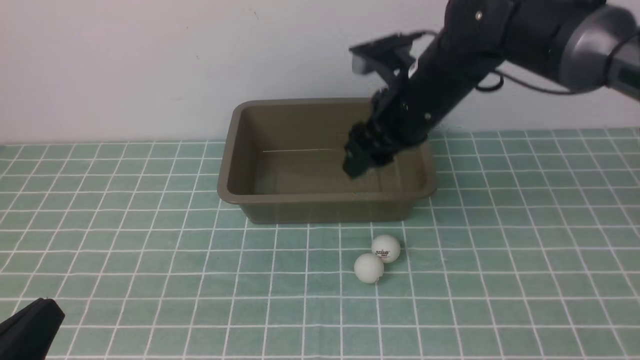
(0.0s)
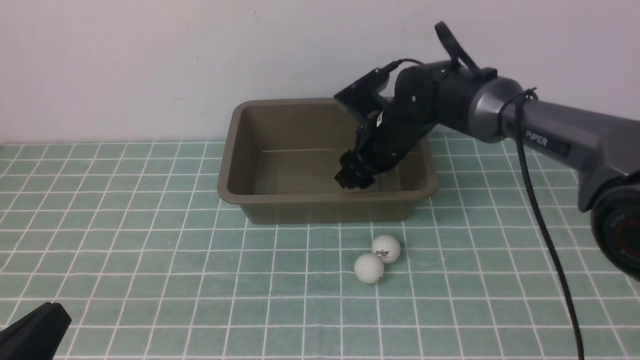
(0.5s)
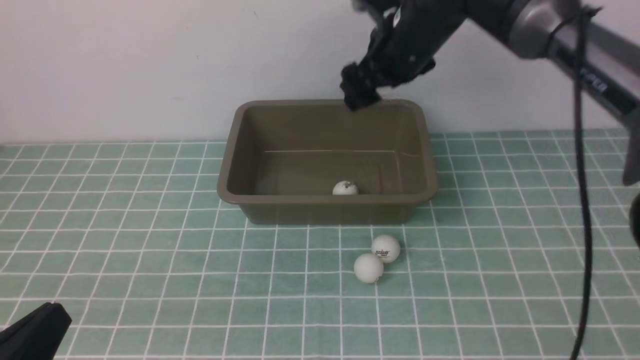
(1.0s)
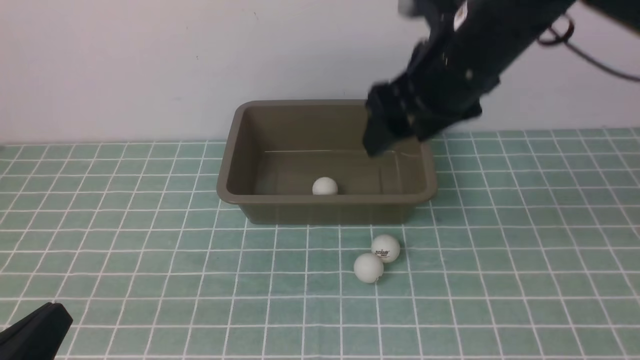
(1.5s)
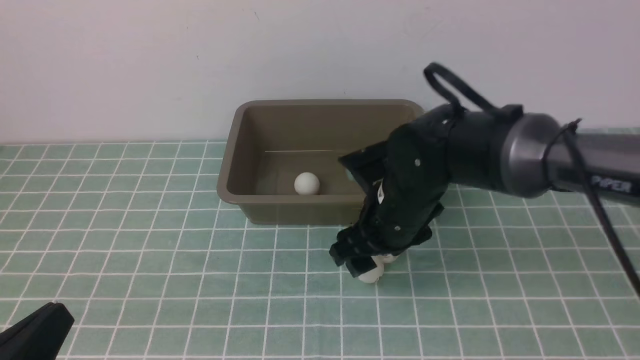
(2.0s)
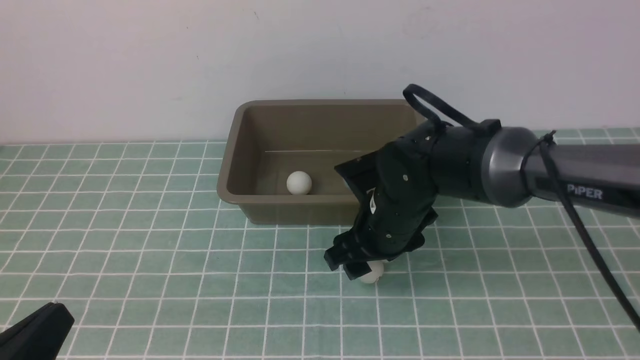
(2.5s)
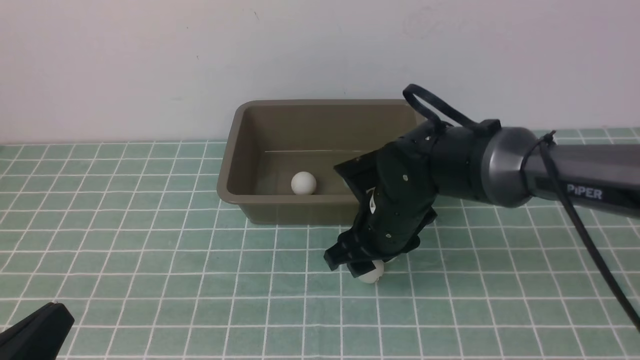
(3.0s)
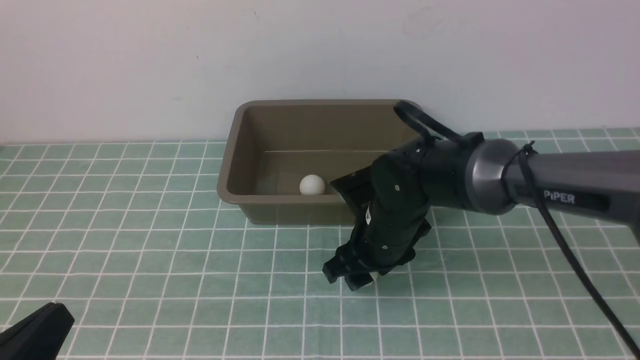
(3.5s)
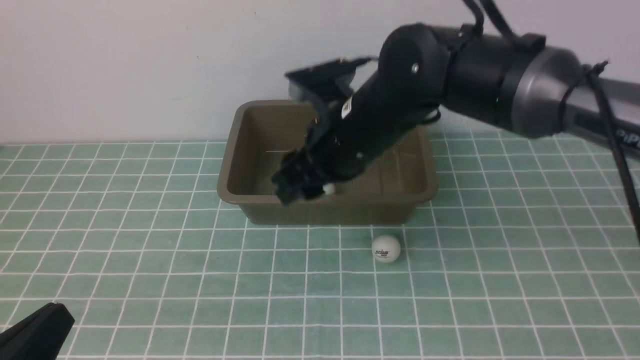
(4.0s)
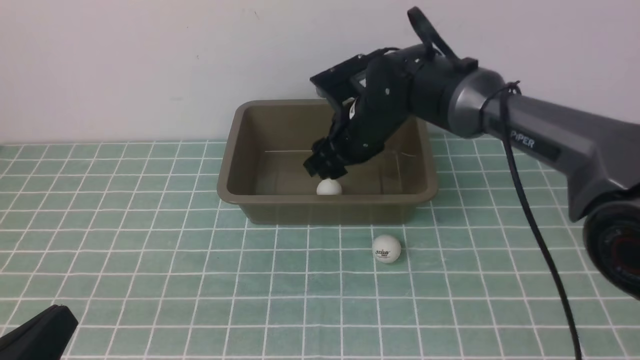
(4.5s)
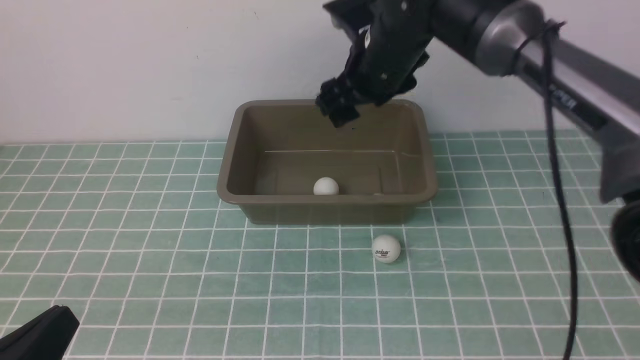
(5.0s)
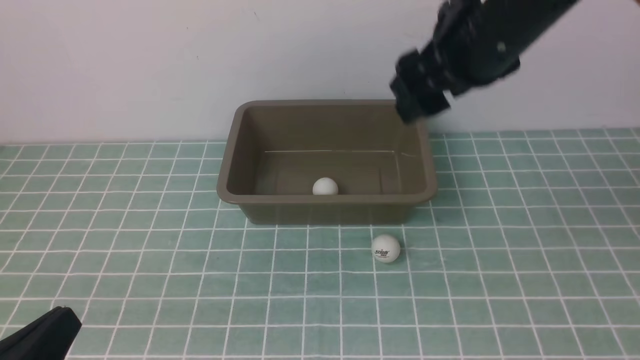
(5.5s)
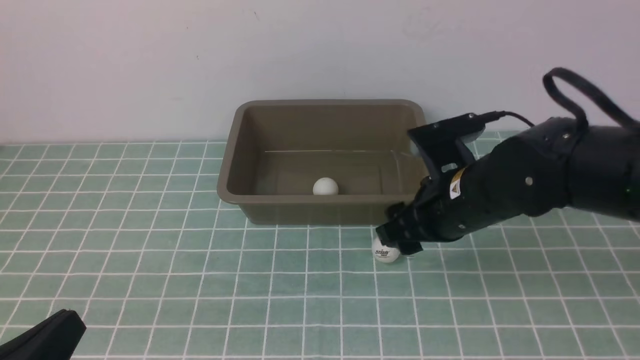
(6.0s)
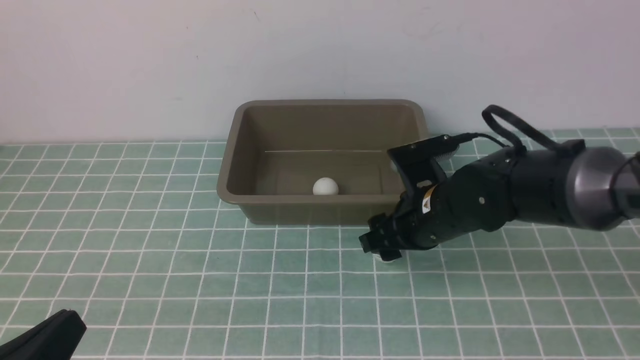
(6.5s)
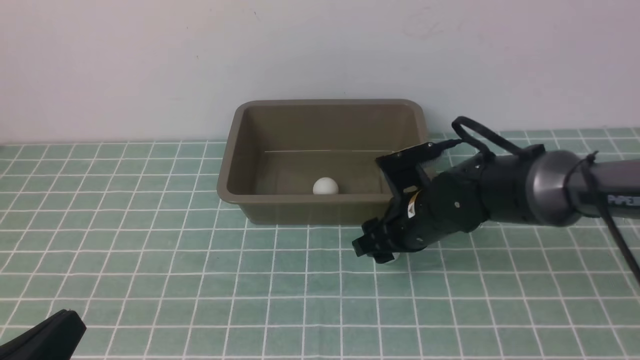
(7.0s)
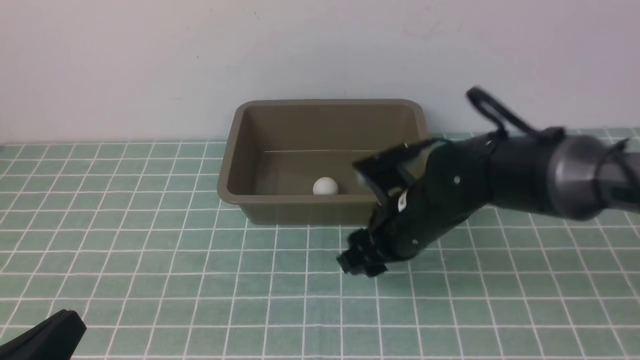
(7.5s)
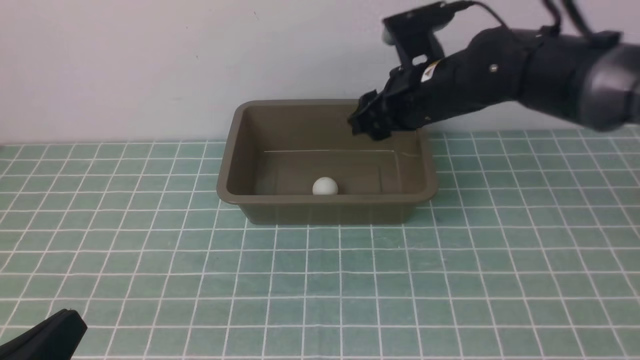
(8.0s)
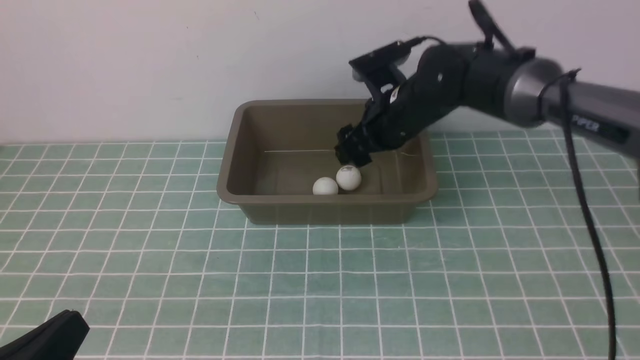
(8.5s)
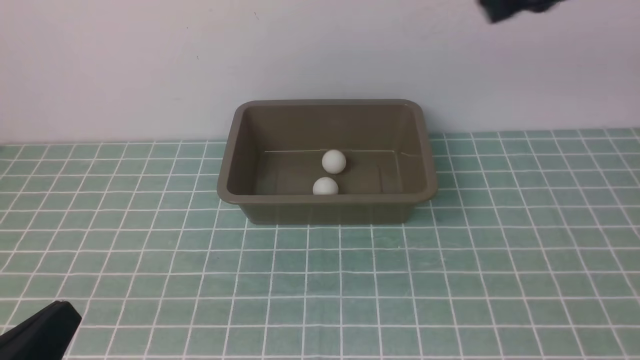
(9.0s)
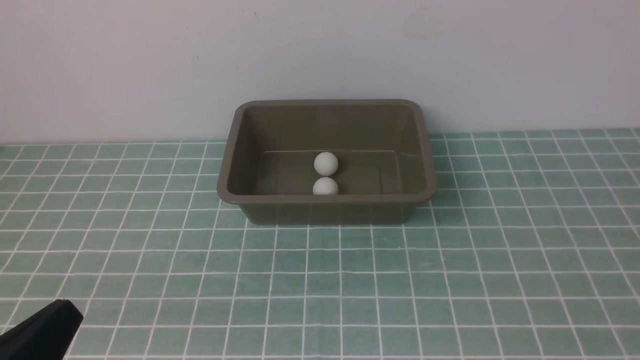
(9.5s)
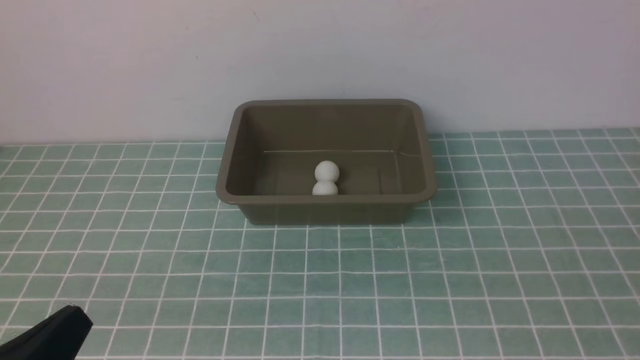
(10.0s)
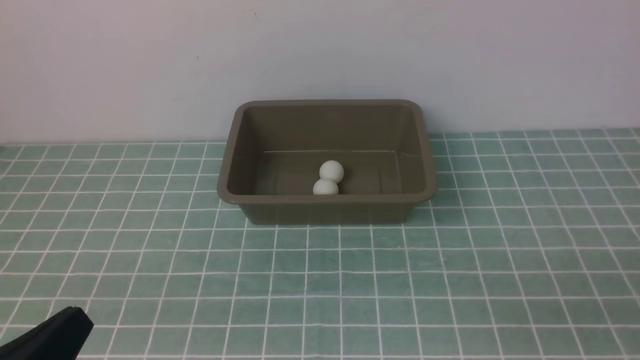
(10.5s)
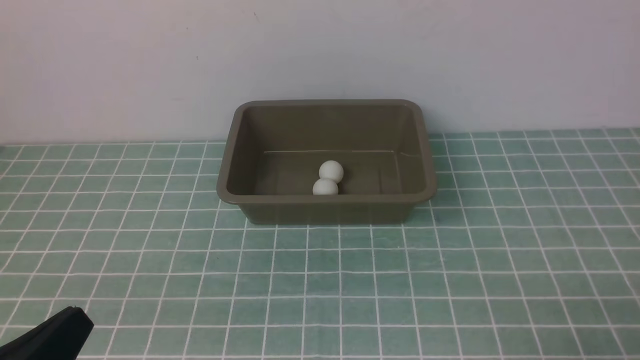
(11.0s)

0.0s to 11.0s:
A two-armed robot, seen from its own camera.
Step, 0.0s to 0.5s: use the right arm to put the table tennis ball into the box.
Step, 1.0s to 3.5s: use the right arm to clamp the table tennis ball closest to it.
Step, 4.0s to 4.5s: use the right arm to put the table tennis ball into the box.
Step, 5.5s to 7.5s: use the right arm to clamp the table tennis ball closest to it.
Step, 8.0s to 8.5s: use the right arm to put the table tennis ball into the box.
0.0s to 2.0s: The right gripper swings up and down, about 20 cm each way, with 2 reversals.
2.0s to 3.5s: The grippers stay close to where they were, moving slightly.
3.5s to 5.5s: The right gripper is displaced upward by some 20 cm.
5.5s to 7.5s: The right gripper travels downward by approximately 15 cm.
7.5s to 9.0s: The right gripper travels upward, backward and to the right by about 30 cm, and closes up.
9.0s to 11.0s: The right gripper is displaced downward and backward by some 30 cm.

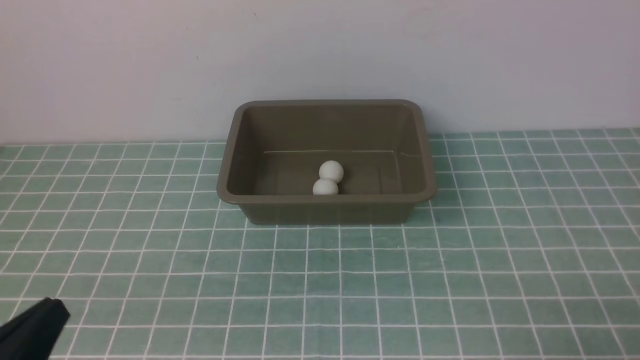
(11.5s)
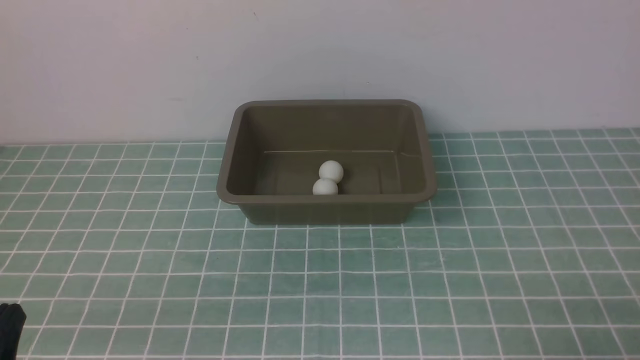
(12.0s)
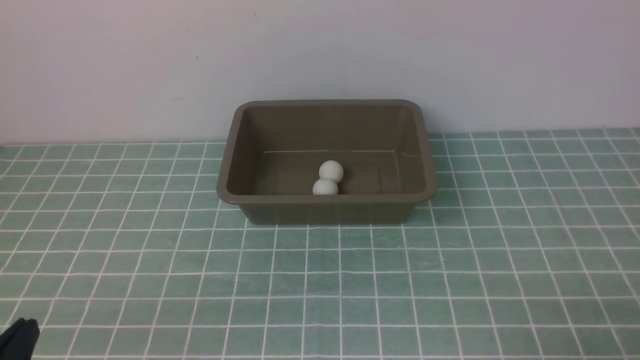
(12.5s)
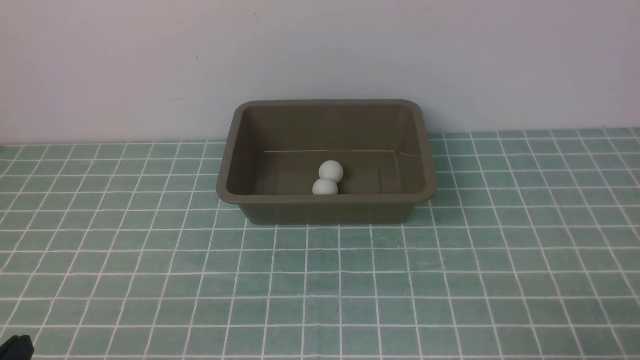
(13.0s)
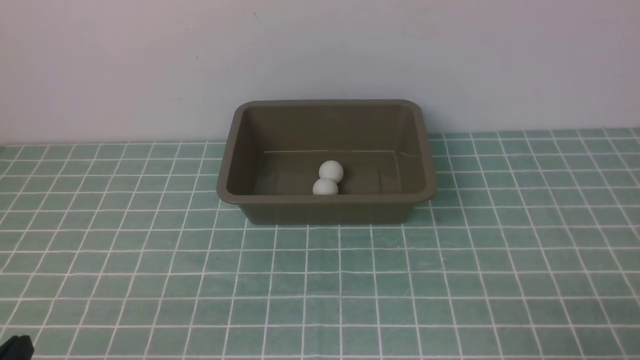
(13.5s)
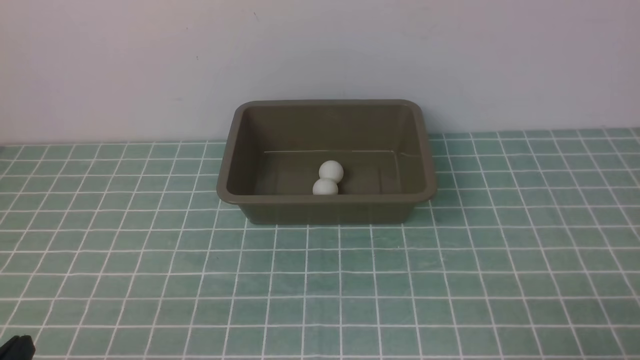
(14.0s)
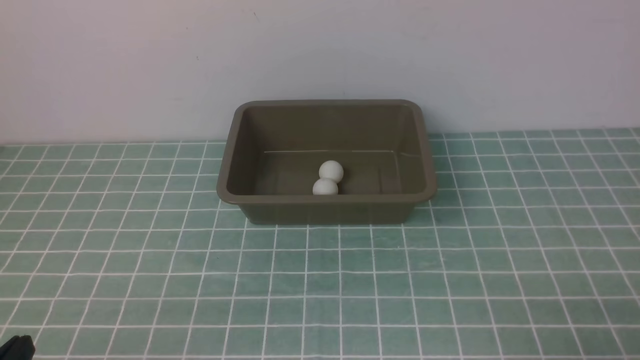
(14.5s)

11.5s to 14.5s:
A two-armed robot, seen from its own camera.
11.5s to 13.0s: The left gripper travels downward by roughly 5 cm.
13.0s to 14.5s: The two grippers keep their place.

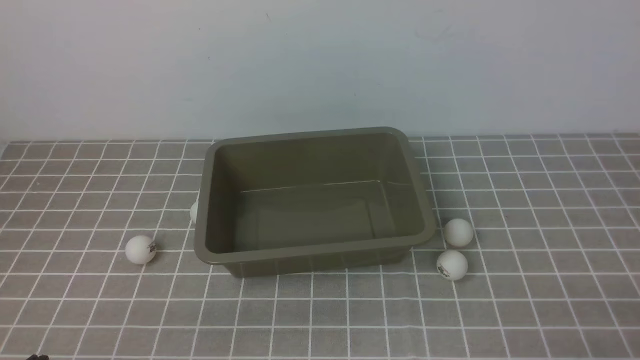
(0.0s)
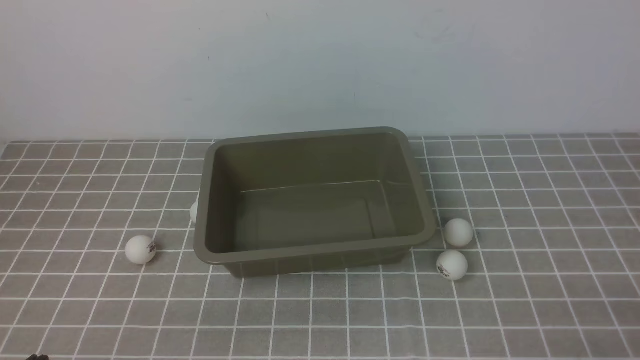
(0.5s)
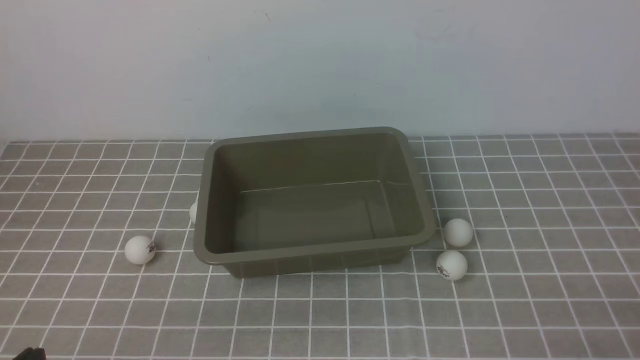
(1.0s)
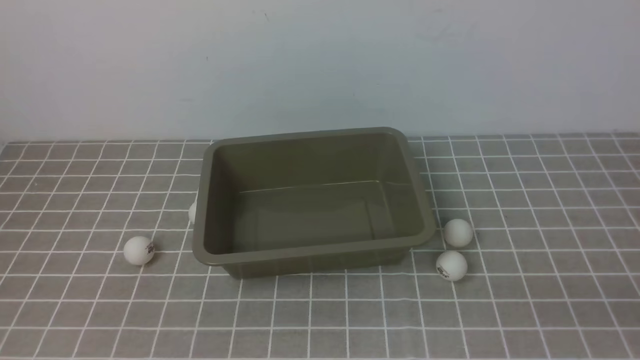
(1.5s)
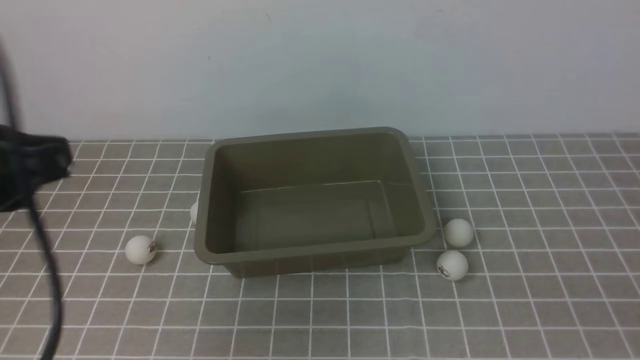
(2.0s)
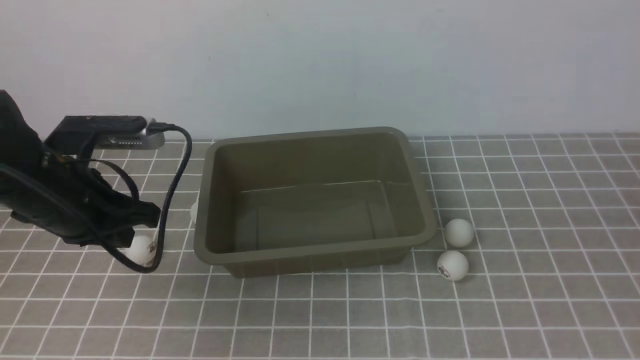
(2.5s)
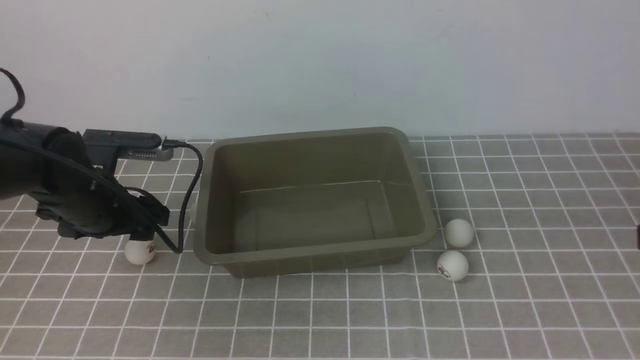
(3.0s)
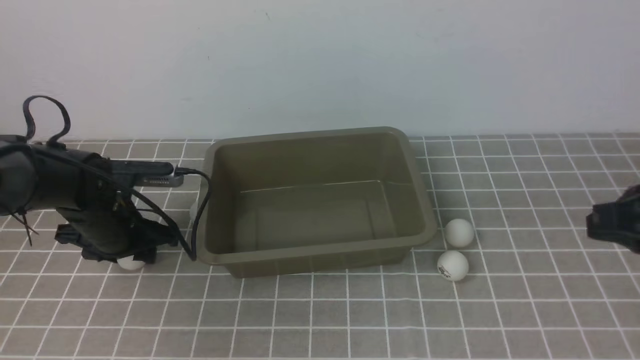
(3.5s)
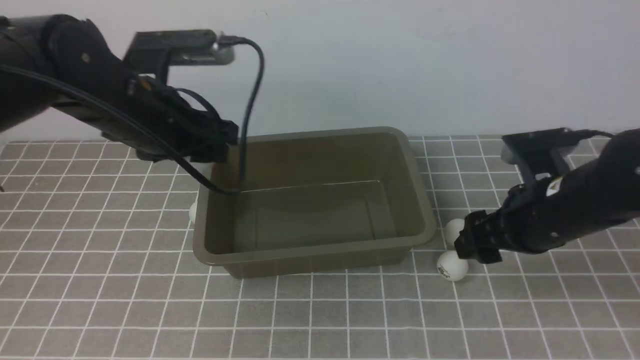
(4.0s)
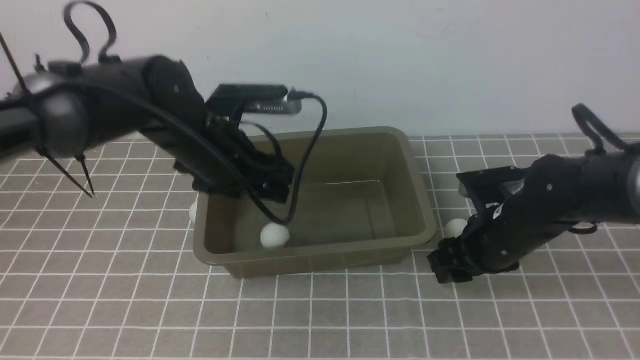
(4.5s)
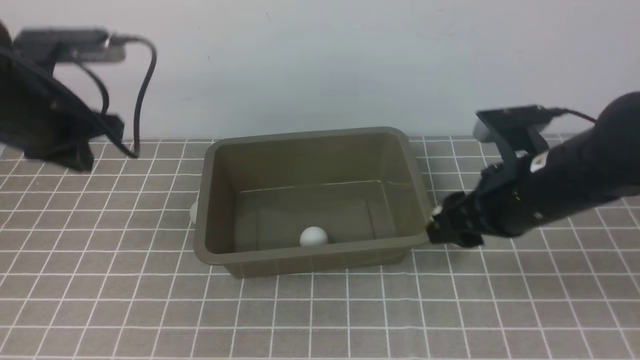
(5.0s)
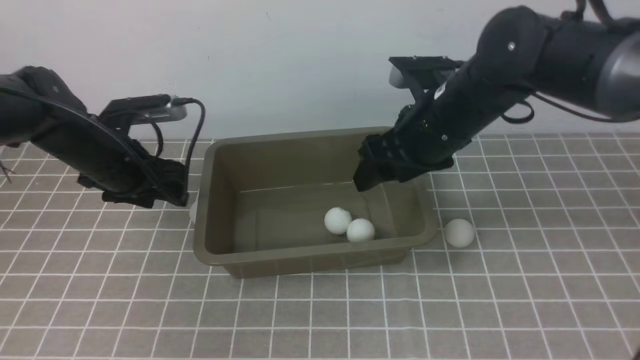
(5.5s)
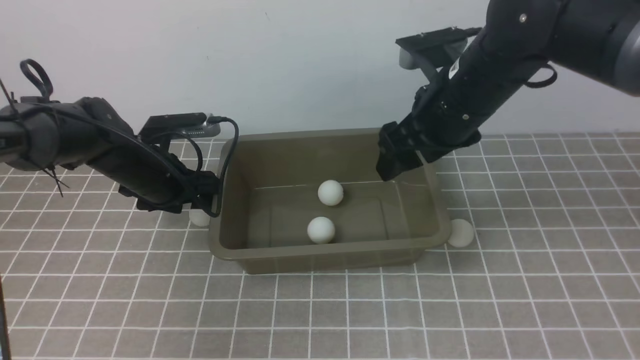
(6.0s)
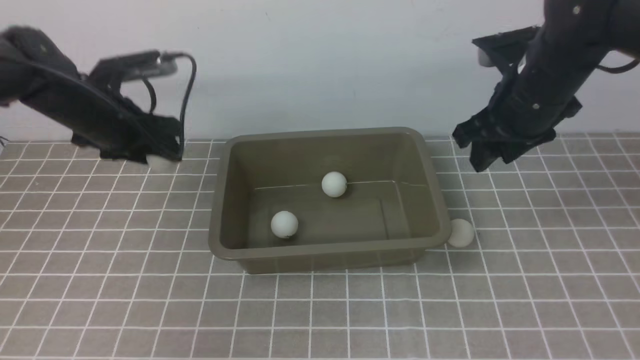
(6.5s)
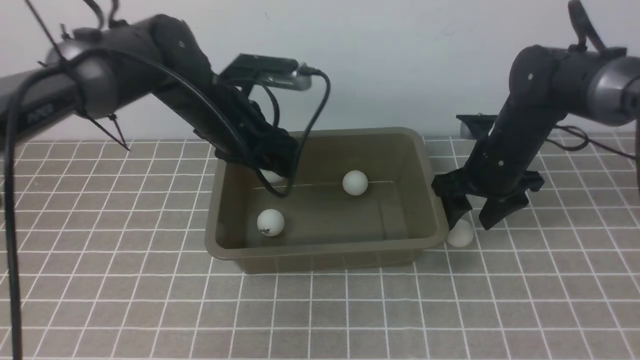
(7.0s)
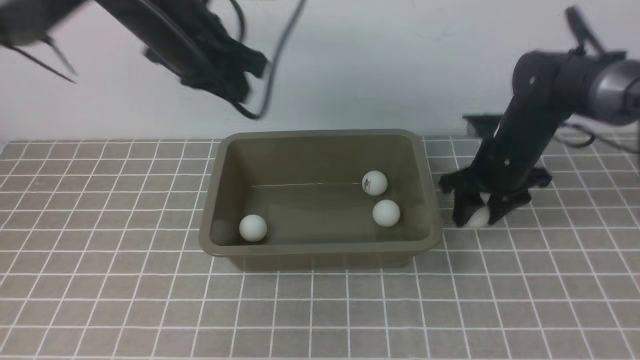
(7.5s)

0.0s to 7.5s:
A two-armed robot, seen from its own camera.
Step, 0.0s to 3.5s: use the left arm to clamp the table tennis ball closest to it.
Step, 4.0s to 4.5s: use the left arm to put the table tennis ball into the box.
0.0s to 2.0s: The left gripper goes some 20 cm upward and forward; the right gripper is displaced upward by approximately 10 cm.
2.0s to 4.0s: The left gripper shifts approximately 20 cm forward and downward, and opens; the right gripper moves forward and to the left, approximately 25 cm, and opens up.
4.0s to 5.5s: The left gripper moves to the left and downward, roughly 10 cm, and closes and opens again, while the right gripper travels to the left, forward and upward by some 15 cm.
5.5s to 7.5s: The right gripper moves to the right and downward, roughly 10 cm; the left gripper moves upward and to the right, approximately 20 cm, and closes.
